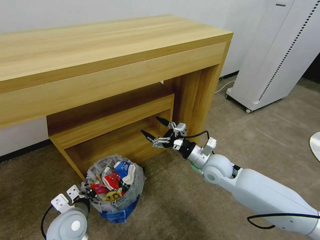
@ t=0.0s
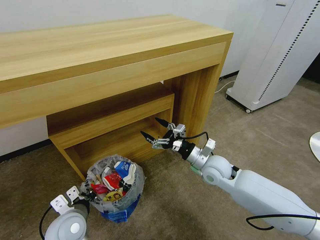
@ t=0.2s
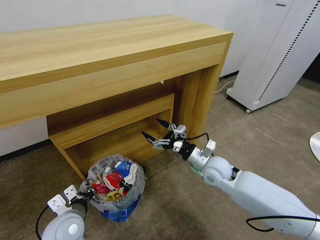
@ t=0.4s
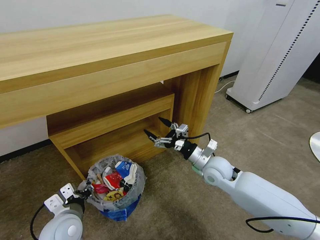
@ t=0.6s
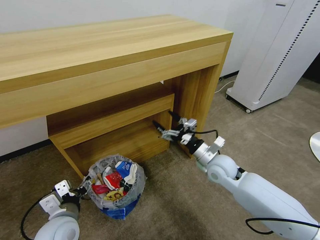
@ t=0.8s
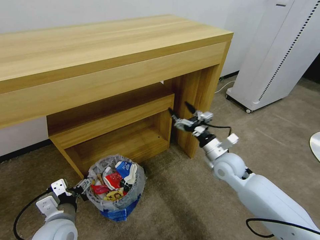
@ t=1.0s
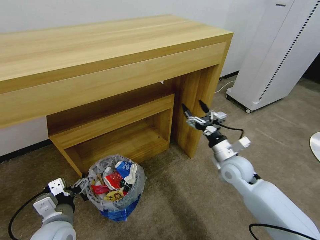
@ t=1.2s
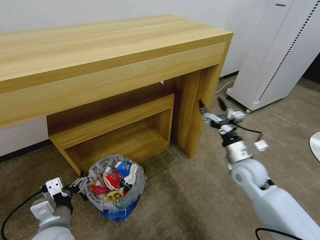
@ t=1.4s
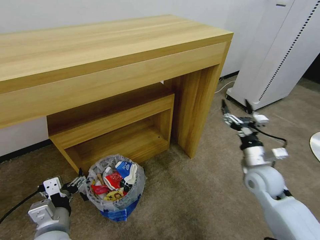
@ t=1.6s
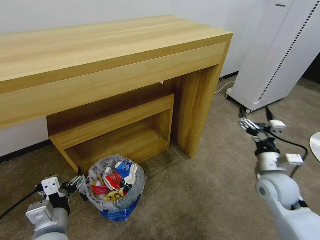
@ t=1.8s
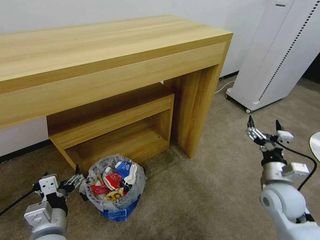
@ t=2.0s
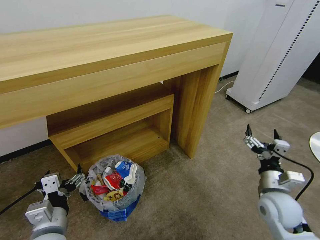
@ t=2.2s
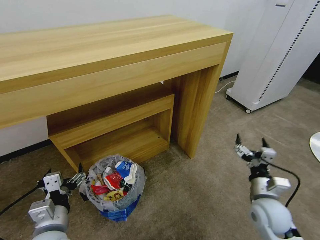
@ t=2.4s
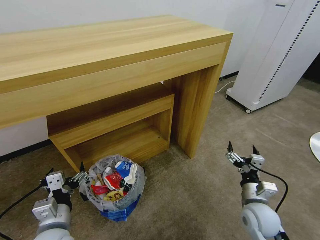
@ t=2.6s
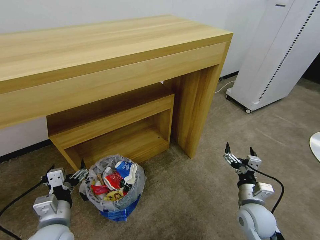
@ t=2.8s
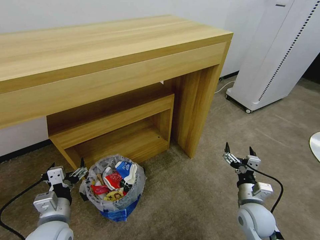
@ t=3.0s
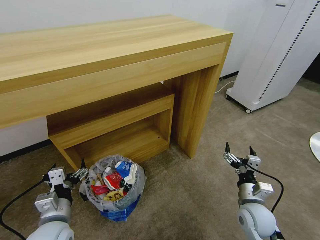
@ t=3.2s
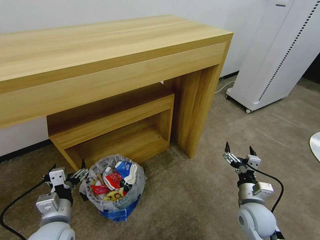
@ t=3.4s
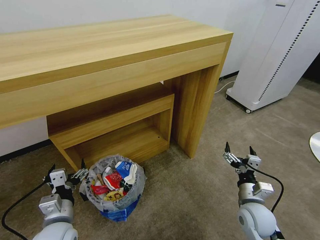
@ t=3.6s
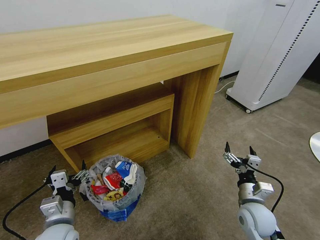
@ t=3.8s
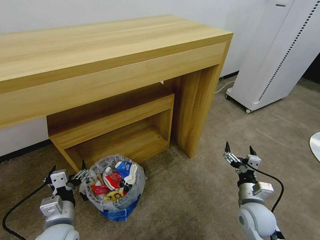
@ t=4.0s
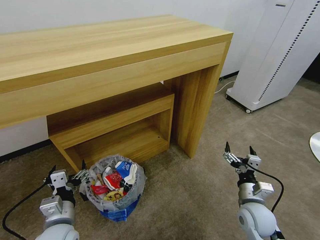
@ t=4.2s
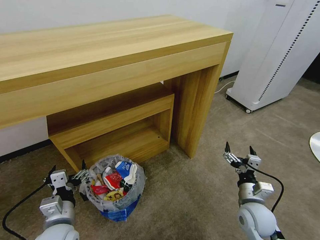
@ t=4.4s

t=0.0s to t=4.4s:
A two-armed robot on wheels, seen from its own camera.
Task of the whole recording: Pick up the trash bin and place the garbage on the floor into it.
t=0.0s to t=1.4s: The right gripper moves to the right, some 10 cm. The left gripper travels backward by some 5 cm, and opens up.
t=1.4s to t=3.0s: The right gripper heads backward and downward, covering approximately 15 cm.
t=3.0s to t=4.4s: The grippers move only a little.
